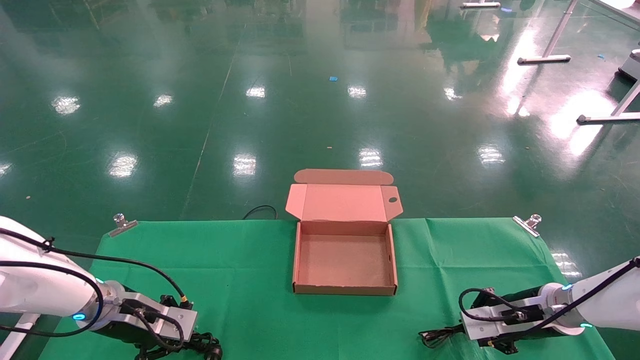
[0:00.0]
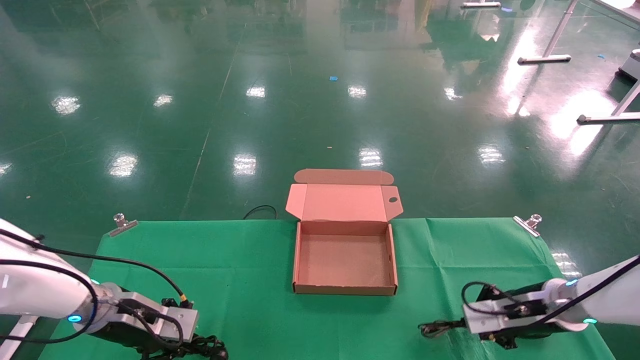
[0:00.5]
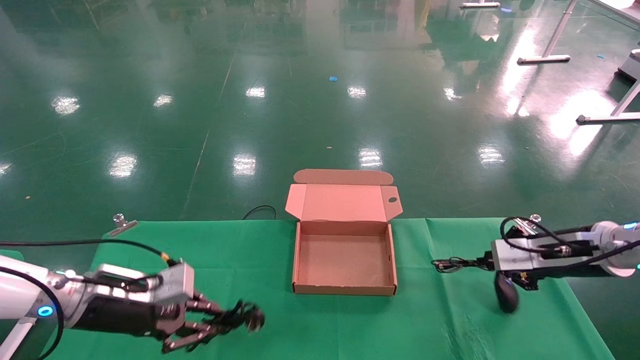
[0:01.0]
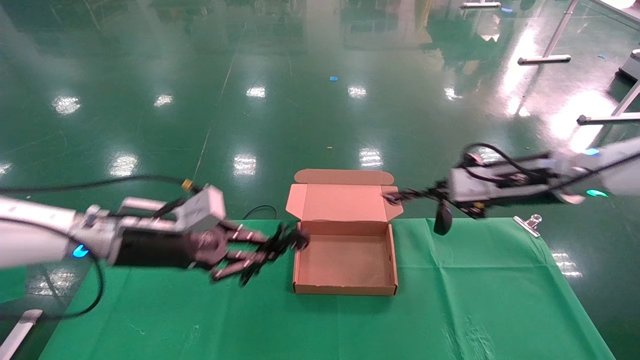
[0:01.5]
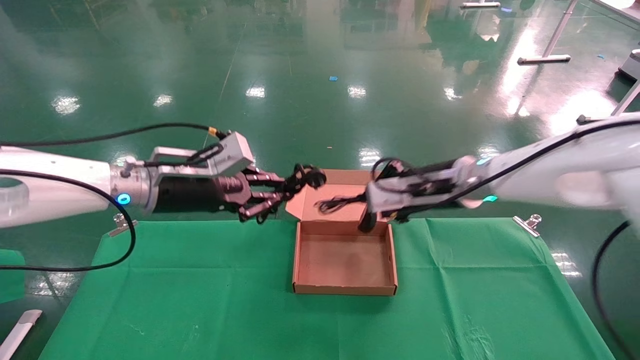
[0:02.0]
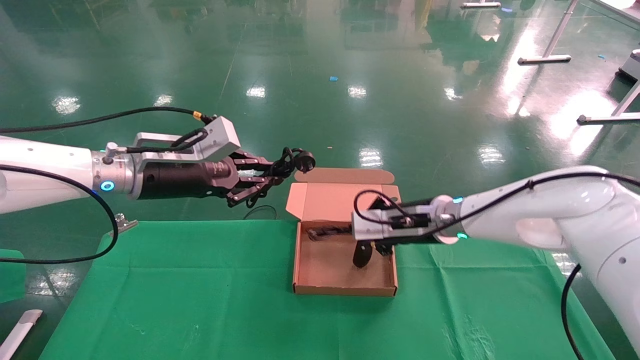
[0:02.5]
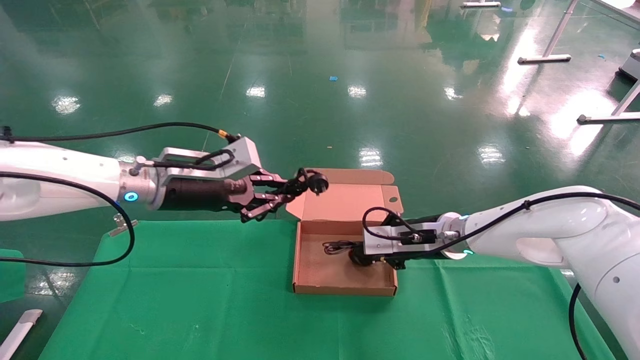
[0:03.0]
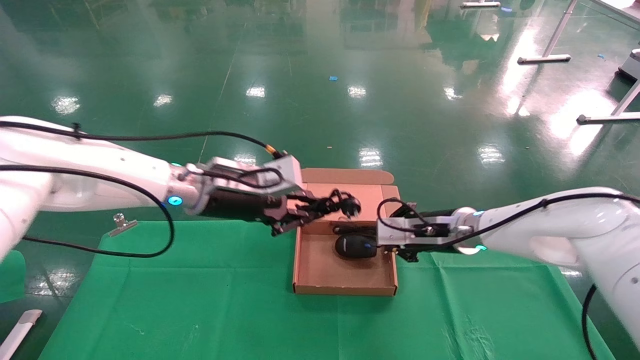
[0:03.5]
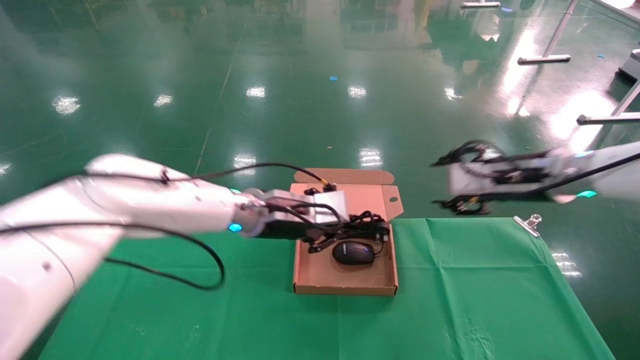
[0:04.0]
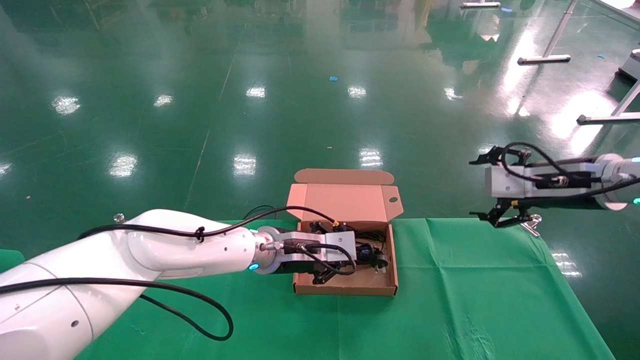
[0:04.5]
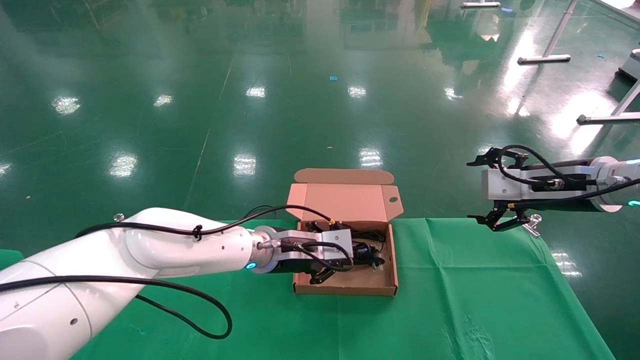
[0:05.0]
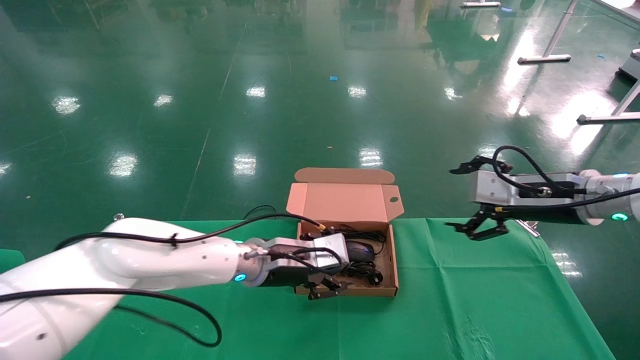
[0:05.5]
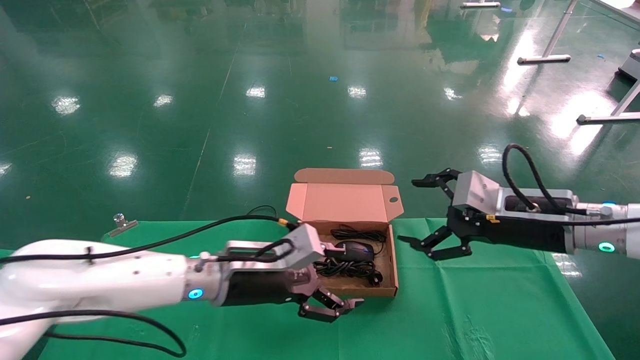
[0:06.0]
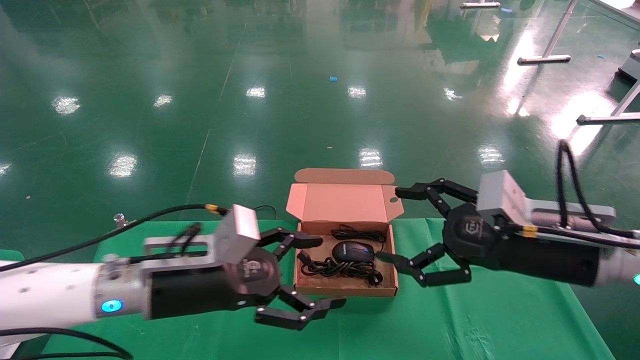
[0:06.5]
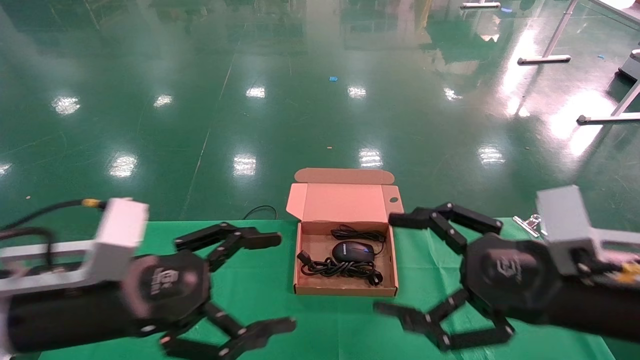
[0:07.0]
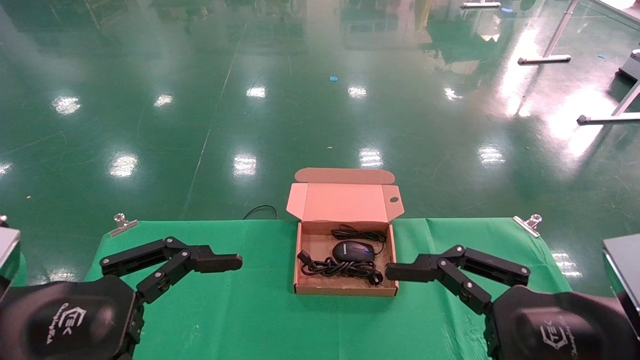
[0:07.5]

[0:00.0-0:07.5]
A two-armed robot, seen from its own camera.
Step, 0:00.5 to 0:05.0: Place the mouse and power cord into the box.
0:00.0 to 0:02.0: The right gripper goes about 25 cm upward and to the left. Meanwhile the left gripper is displaced upward and to the right by about 20 cm.
0:02.0 to 0:04.0: Both grippers move to the right, approximately 15 cm. The right gripper opens up.
0:04.0 to 0:05.5: The left gripper travels downward by some 5 cm; the right gripper opens its fingers.
0:05.5 to 0:07.5: The left gripper is displaced backward and to the left by some 30 cm, and opens. The right gripper travels backward by some 25 cm.
